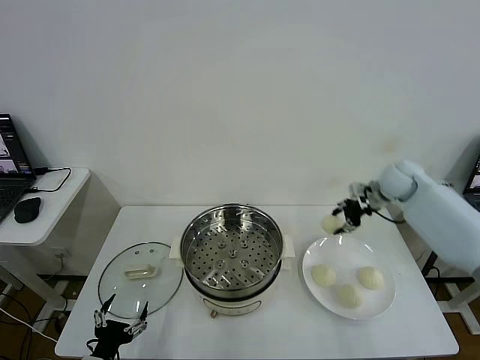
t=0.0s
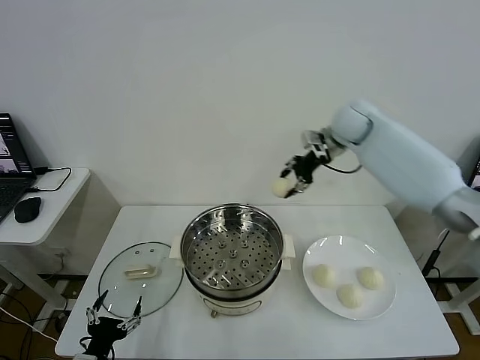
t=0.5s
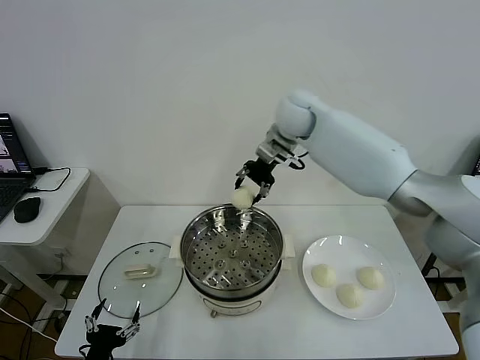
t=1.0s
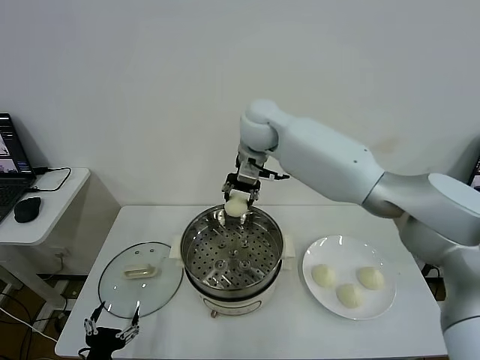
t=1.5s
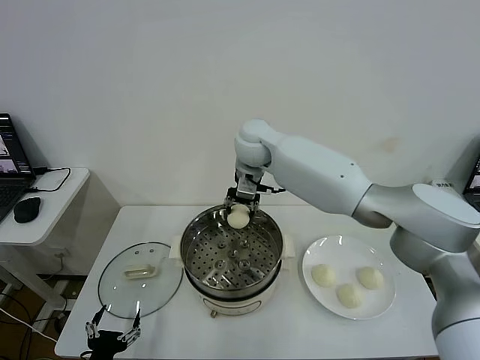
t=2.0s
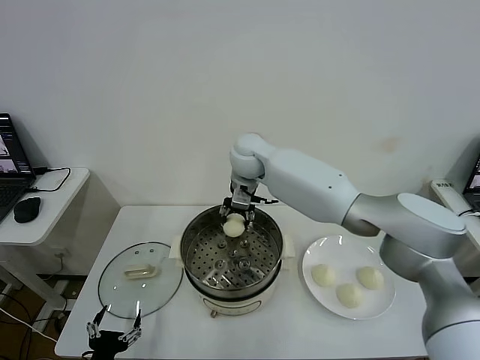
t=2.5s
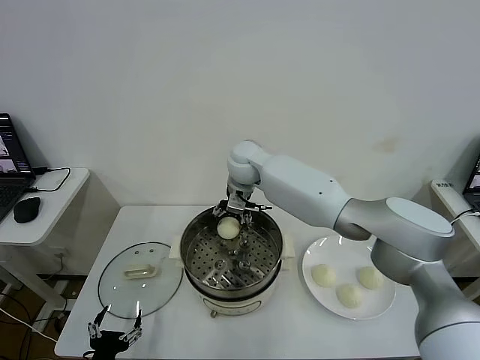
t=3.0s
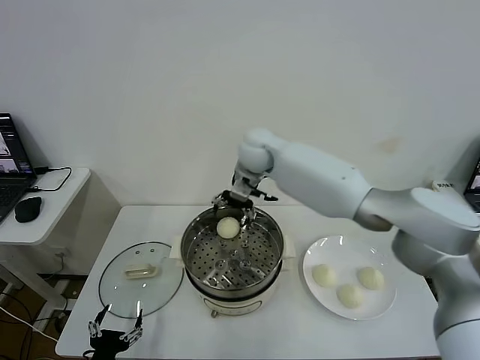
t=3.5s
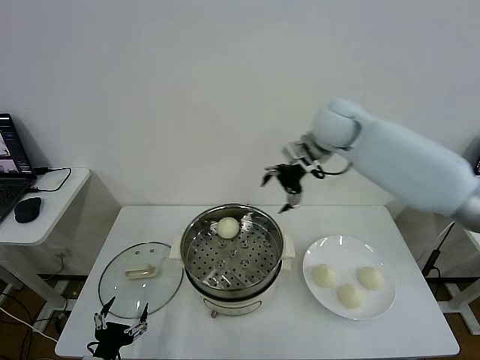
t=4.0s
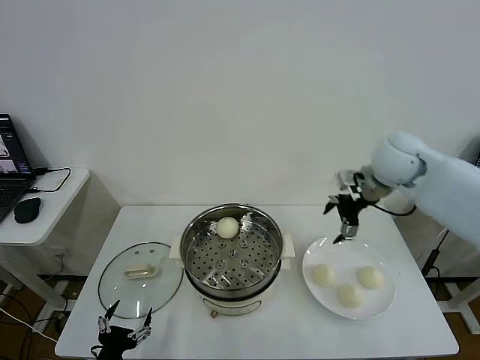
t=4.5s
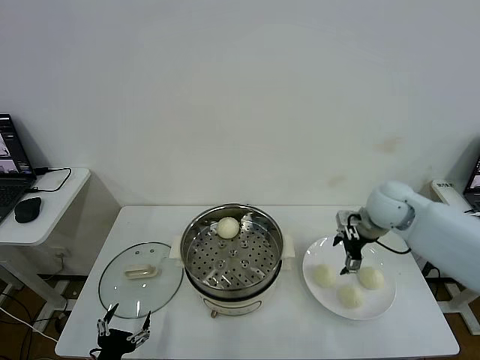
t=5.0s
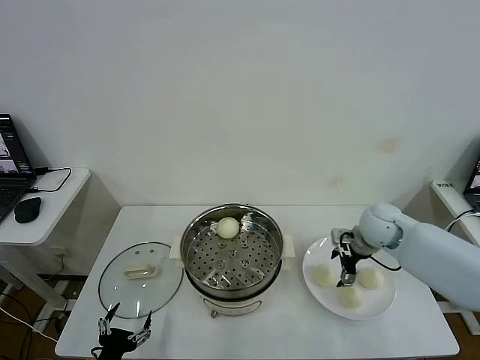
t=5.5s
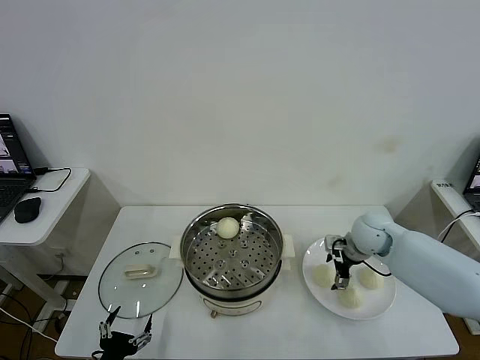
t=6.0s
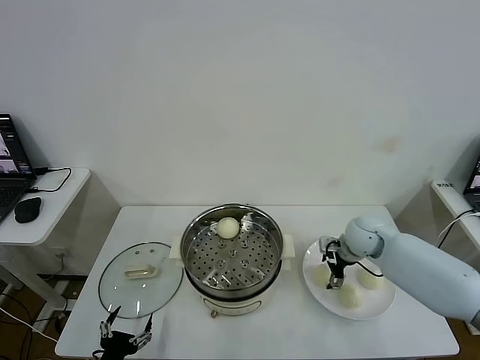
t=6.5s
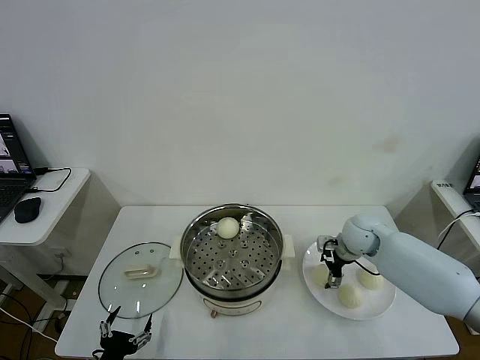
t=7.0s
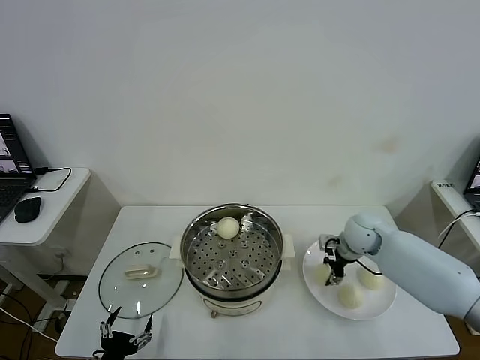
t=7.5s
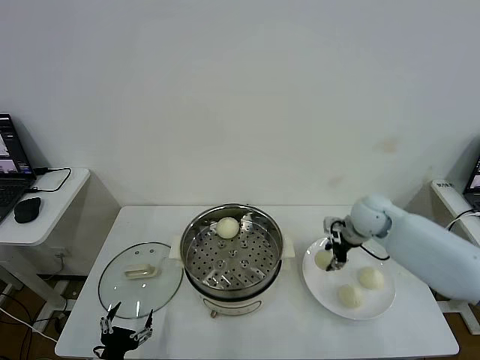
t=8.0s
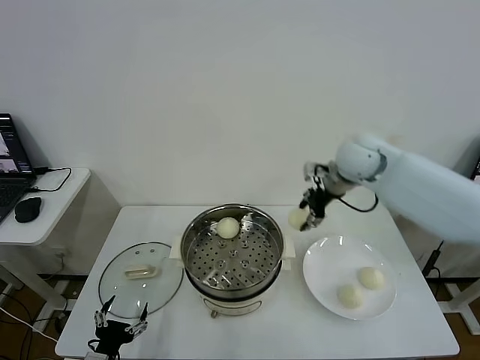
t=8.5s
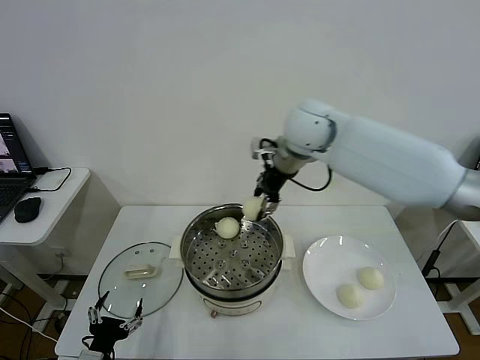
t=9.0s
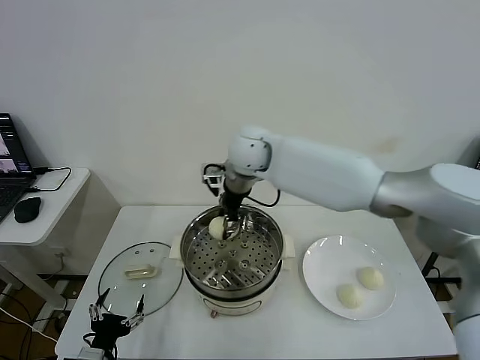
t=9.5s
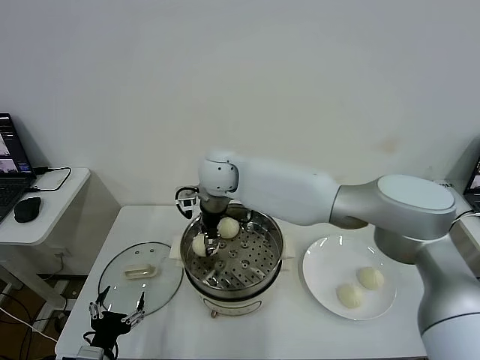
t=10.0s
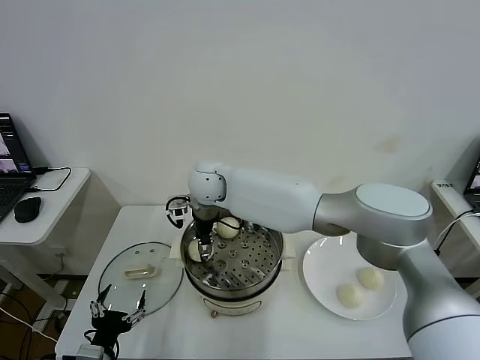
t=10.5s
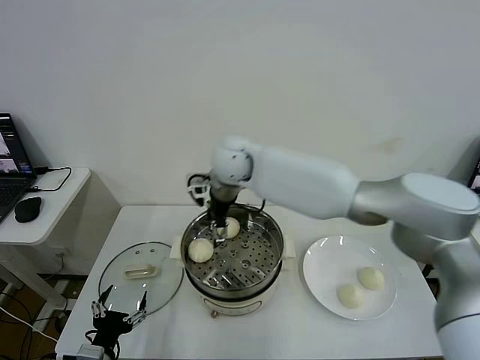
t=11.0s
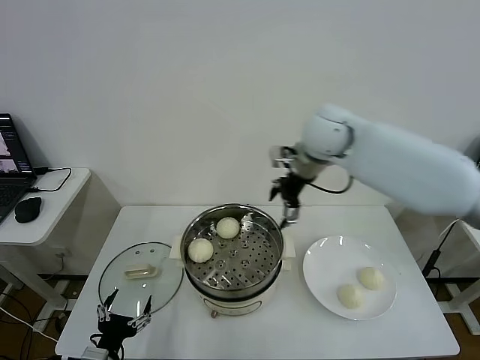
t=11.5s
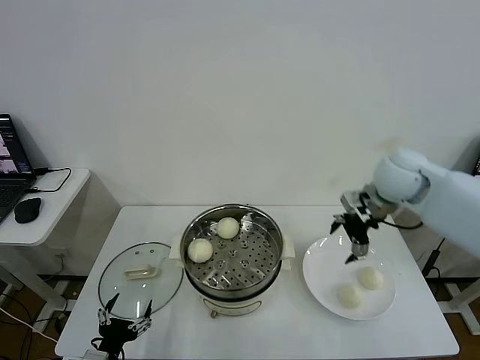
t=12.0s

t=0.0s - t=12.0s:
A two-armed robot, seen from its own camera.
Step, t=0.0s - t=3.0s: Place the baozi on the steamer with right gripper.
Step, t=3.5s - t=7.0s: Grasp the baozi in the plate with right gripper.
Step, t=7.5s - t=10.5s: Place the baozi on the steamer with right gripper.
t=0.0s - t=2.0s: The right gripper goes about 30 cm to the left.
t=2.0s - t=4.0s: The right gripper moves to the right, about 20 cm, and opens its fingers.
t=4.0s - t=6.0s: The right gripper heads downward, covering about 25 cm.
t=6.0s - t=8.0s: The right gripper shifts roughly 5 cm upward, and closes.
t=8.0s - t=10.0s: The right gripper heads to the left, covering some 35 cm.
t=10.0s - t=12.0s: The right gripper goes roughly 35 cm to the right, and opens up.

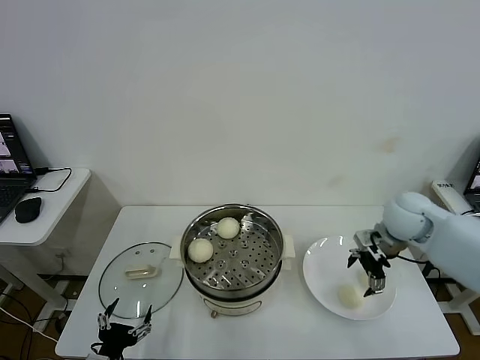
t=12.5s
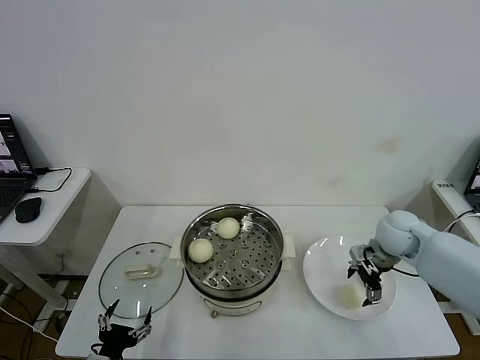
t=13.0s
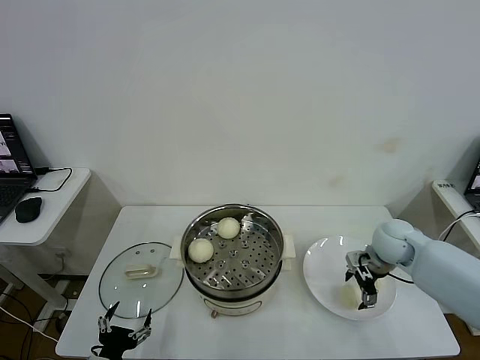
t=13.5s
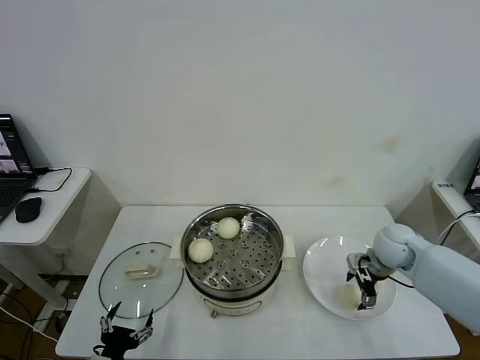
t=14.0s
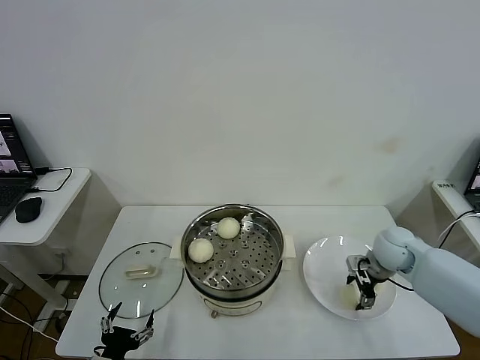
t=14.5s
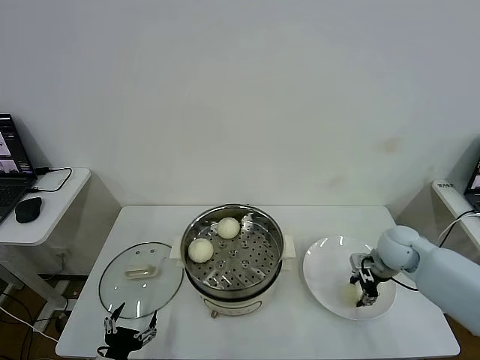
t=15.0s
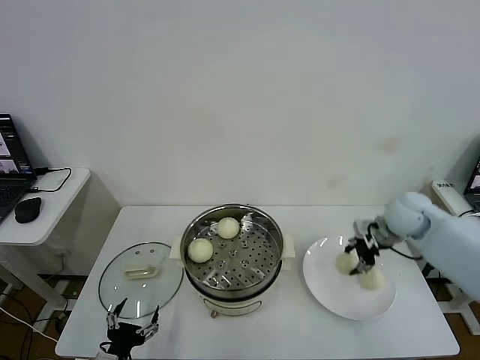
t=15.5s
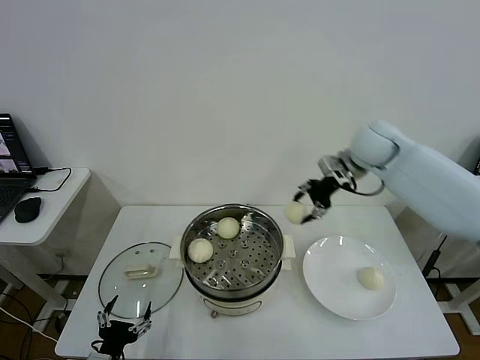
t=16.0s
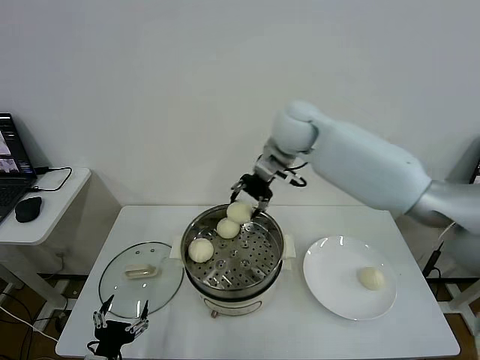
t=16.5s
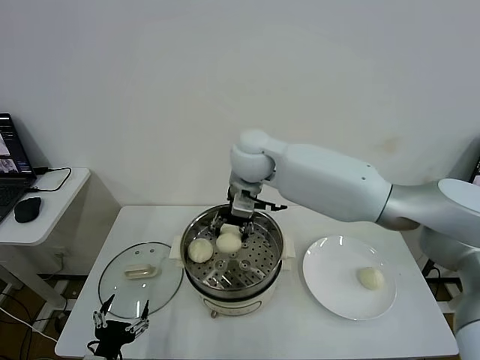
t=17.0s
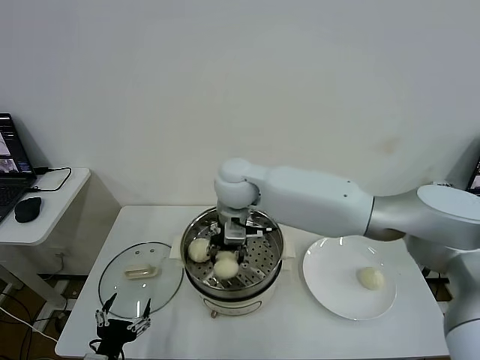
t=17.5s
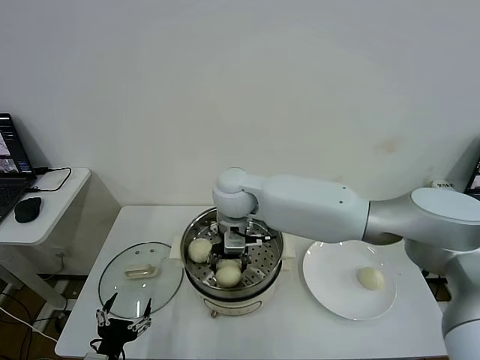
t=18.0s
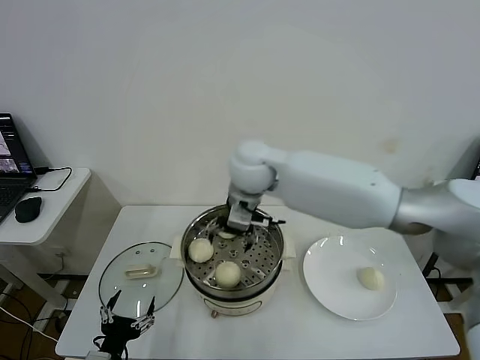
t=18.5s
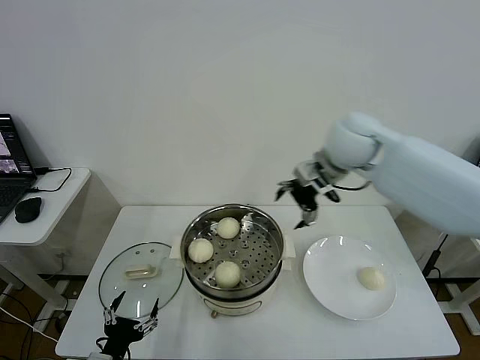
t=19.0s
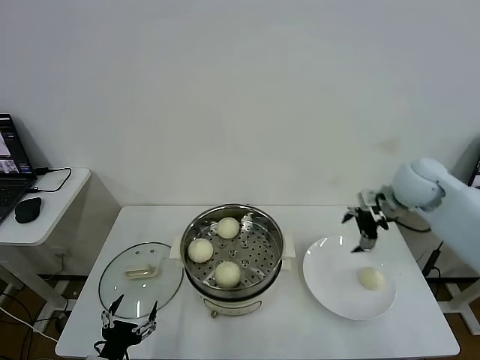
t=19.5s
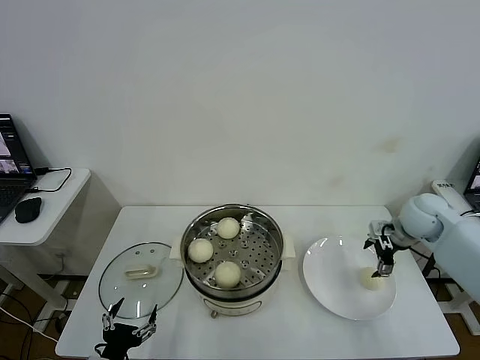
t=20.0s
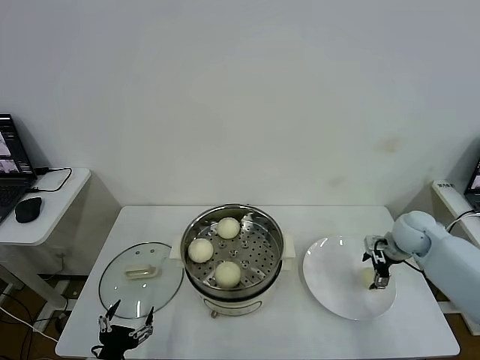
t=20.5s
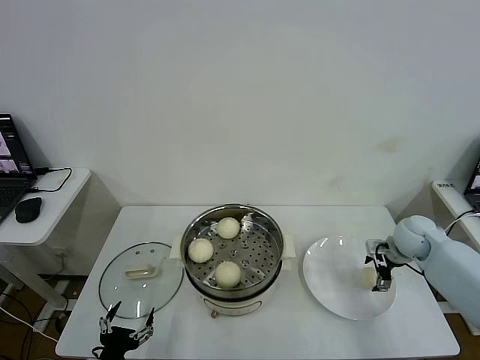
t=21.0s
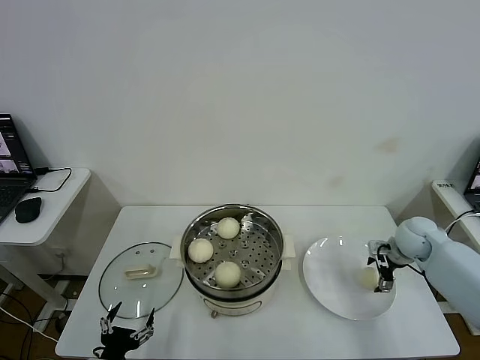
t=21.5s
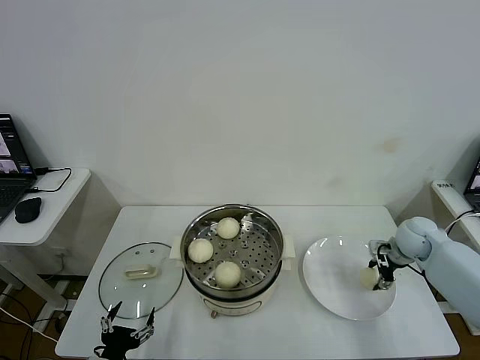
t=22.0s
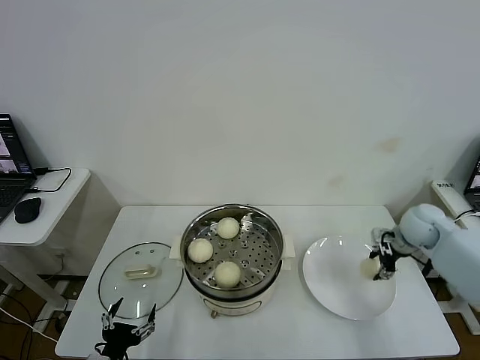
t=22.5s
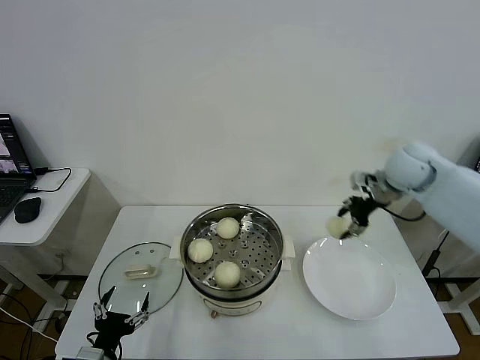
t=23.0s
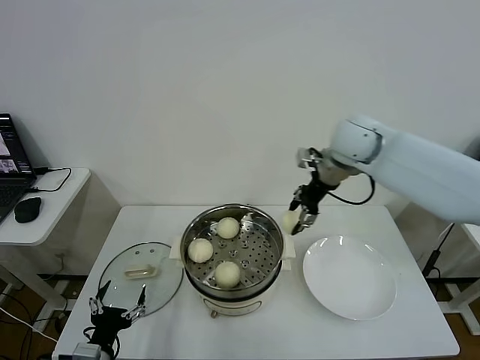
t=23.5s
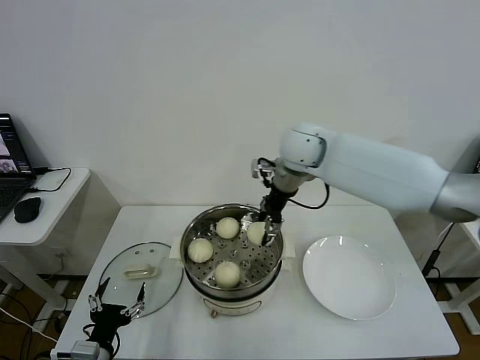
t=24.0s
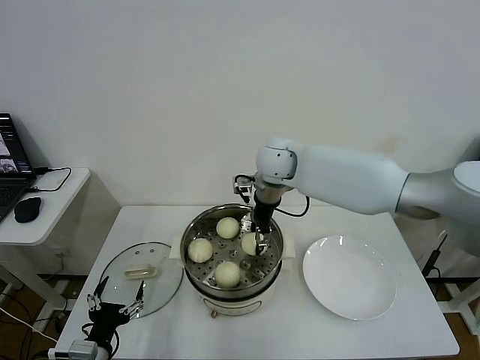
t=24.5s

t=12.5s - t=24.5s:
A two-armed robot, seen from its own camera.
Step, t=12.5s - t=14.5s: Grasp the baozi in the plate with right gripper.
Step, t=15.0s - t=18.0s: Place the baozi on the steamer with right gripper.
Step, t=18.5s - t=22.0s: Grasp the baozi in the plate with right gripper.
t=12.5s - t=14.5s: The right gripper shifts about 10 cm downward, and closes up.
t=14.5s - t=16.5s: The right gripper heads to the left, upward and forward, covering about 40 cm, and closes its fingers.
t=16.5s - t=18.5s: The right gripper moves backward and to the left, some 10 cm, and opens its fingers.
t=18.5s - t=20.5s: The right gripper goes about 40 cm to the right and downward.
t=20.5s - t=22.5s: The right gripper closes.
t=22.5s - t=24.5s: The right gripper is displaced to the left by approximately 35 cm.

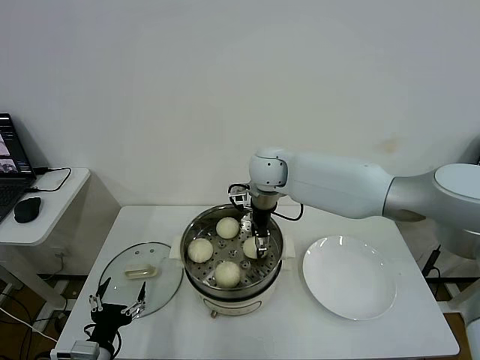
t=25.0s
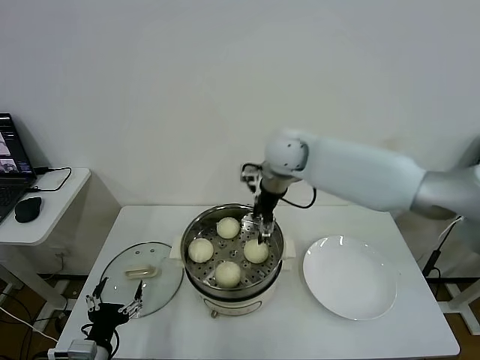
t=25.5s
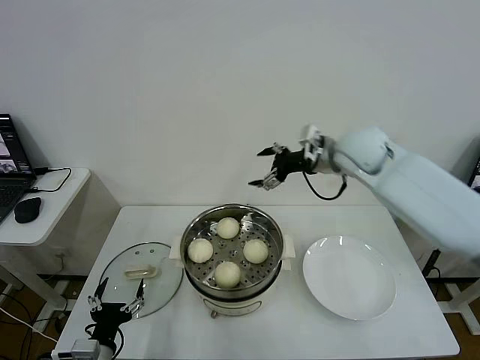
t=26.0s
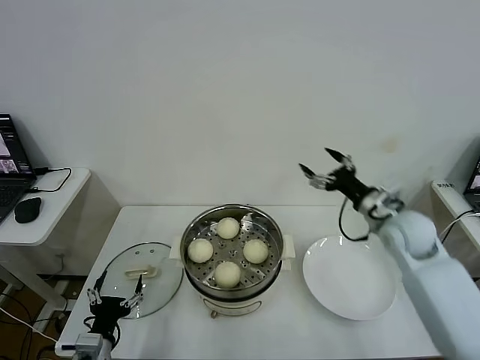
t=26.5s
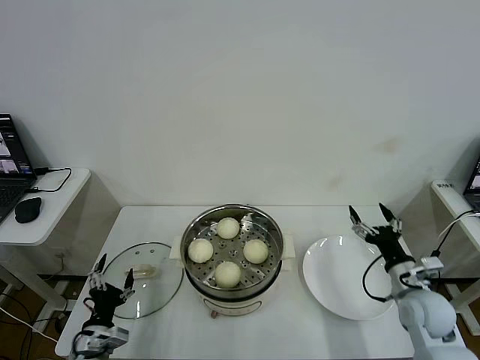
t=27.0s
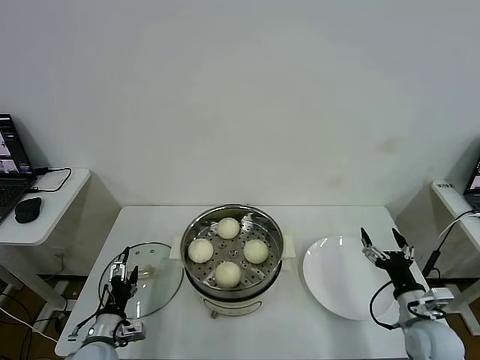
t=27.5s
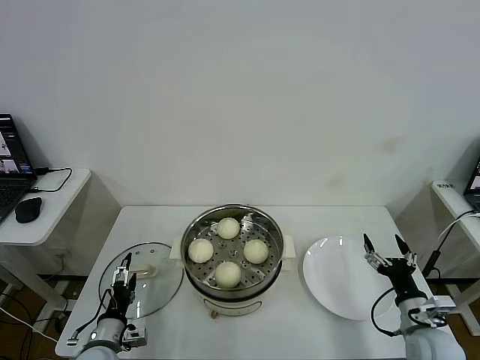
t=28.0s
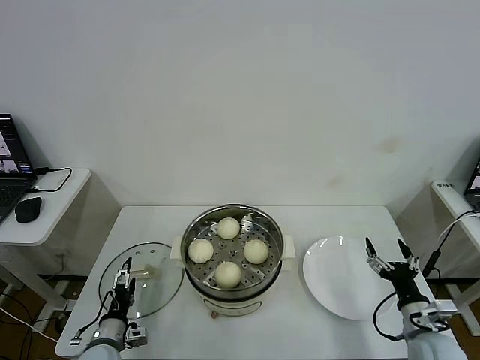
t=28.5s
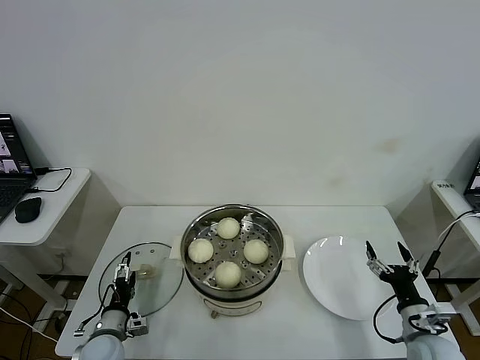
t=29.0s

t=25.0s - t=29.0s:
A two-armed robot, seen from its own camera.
t=25.0s - t=27.0s: The right gripper shifts approximately 40 cm to the right, backward and downward, and opens; the left gripper ends up approximately 5 cm from where it was.
t=27.0s - t=29.0s: The right gripper moves backward, some 10 cm. The left gripper goes approximately 10 cm forward and downward.
